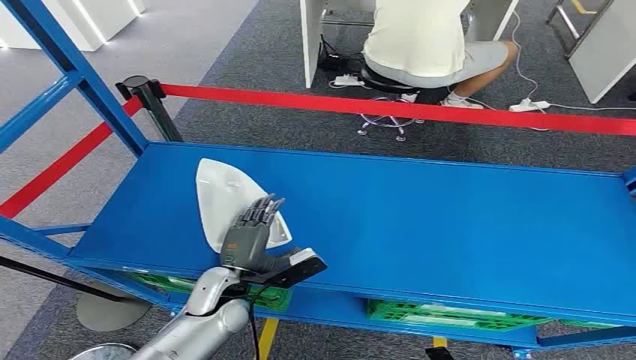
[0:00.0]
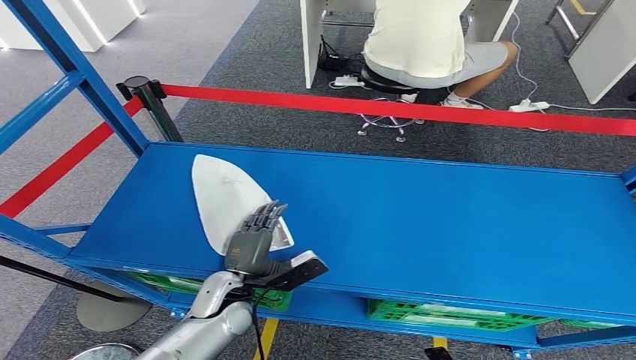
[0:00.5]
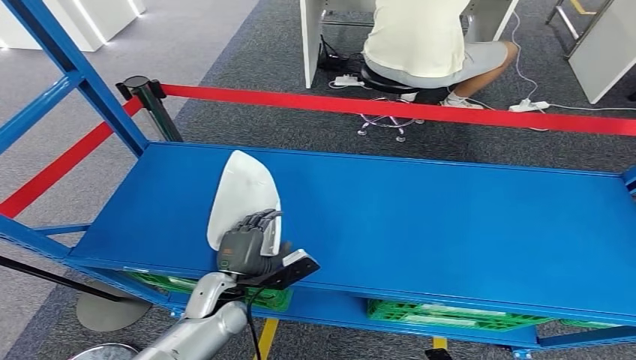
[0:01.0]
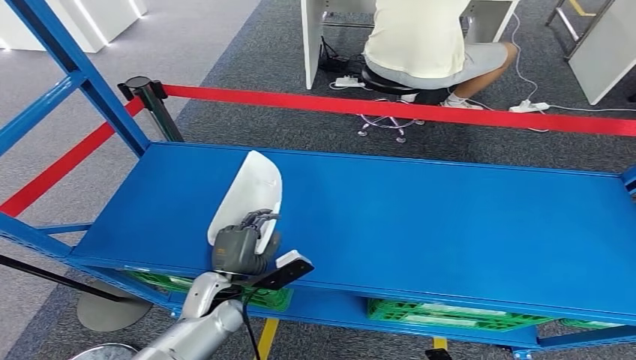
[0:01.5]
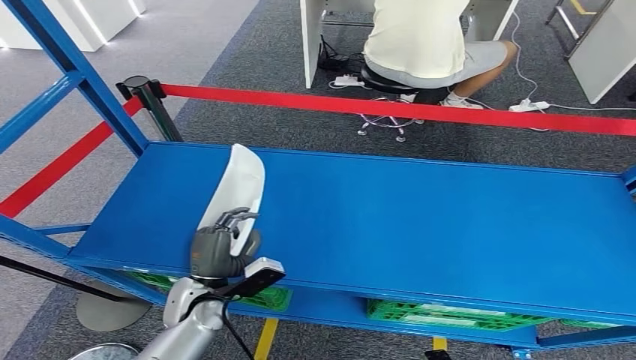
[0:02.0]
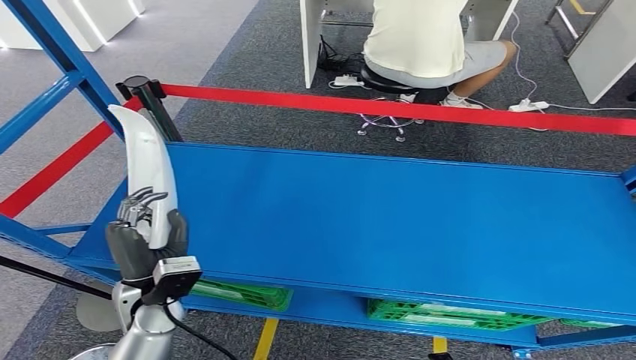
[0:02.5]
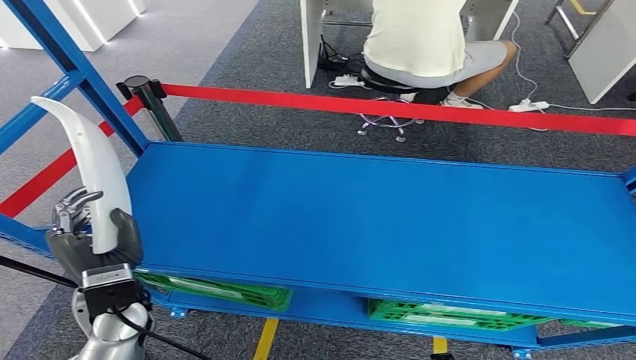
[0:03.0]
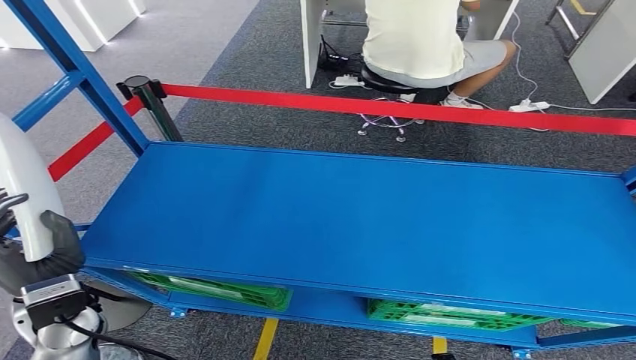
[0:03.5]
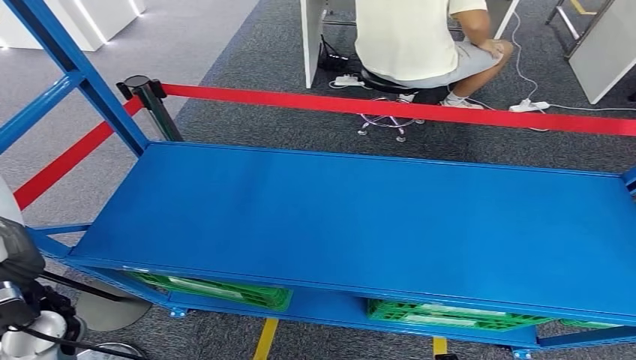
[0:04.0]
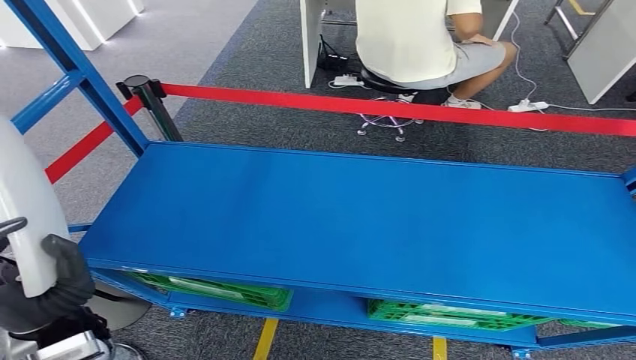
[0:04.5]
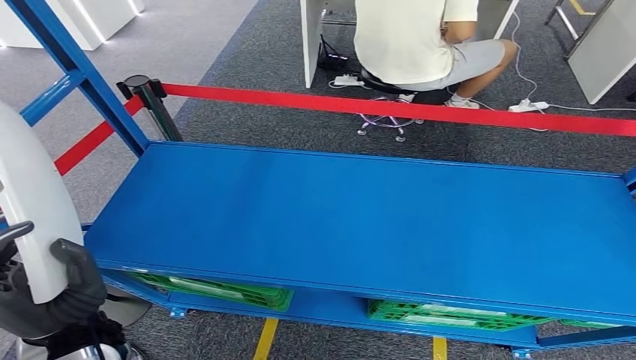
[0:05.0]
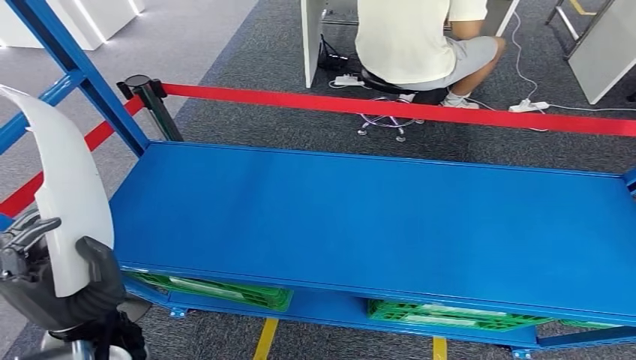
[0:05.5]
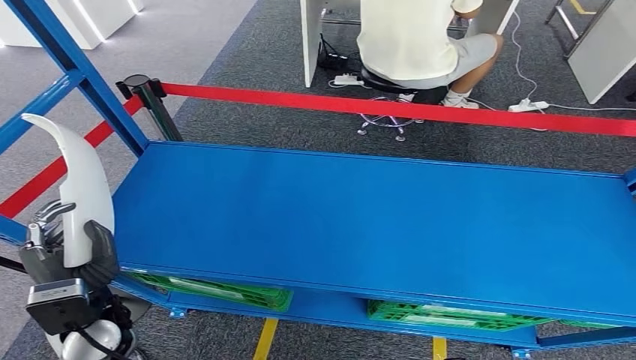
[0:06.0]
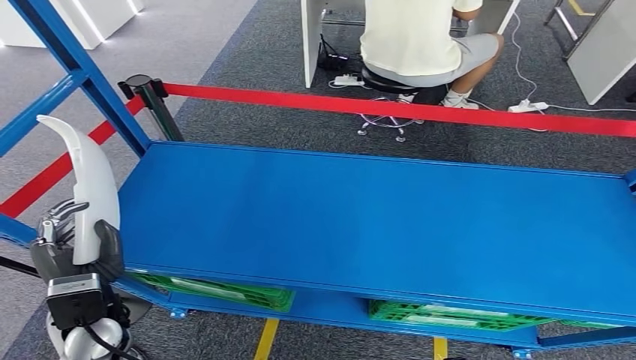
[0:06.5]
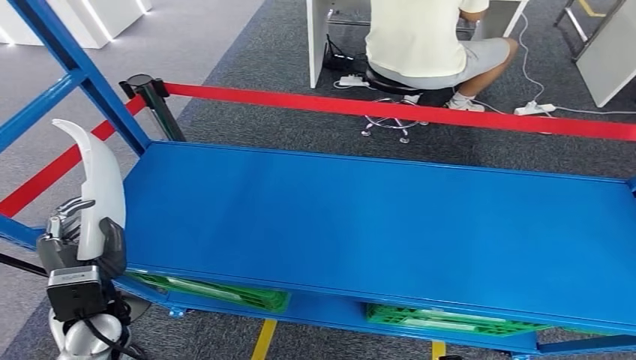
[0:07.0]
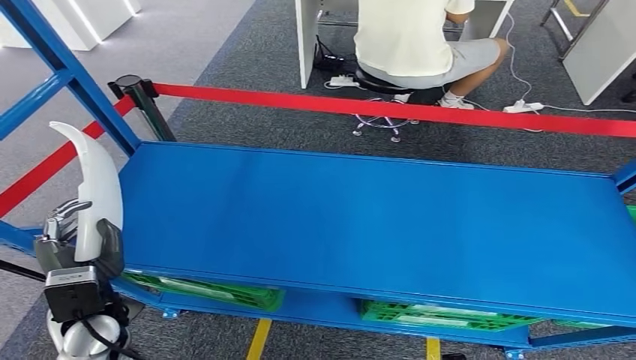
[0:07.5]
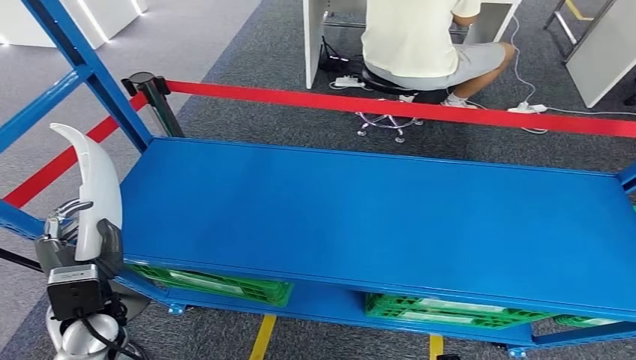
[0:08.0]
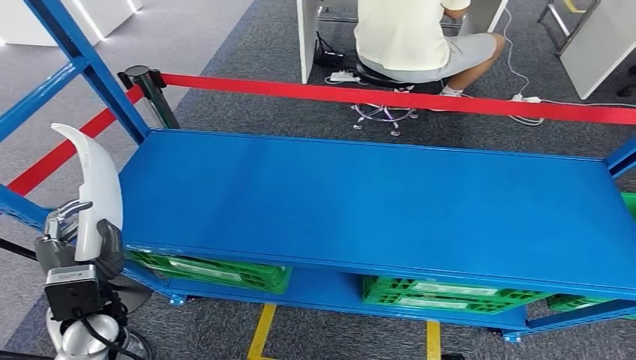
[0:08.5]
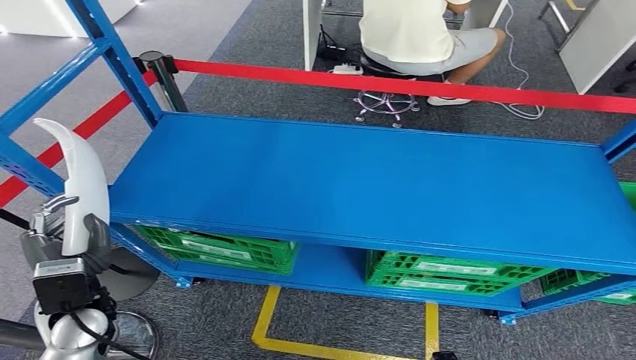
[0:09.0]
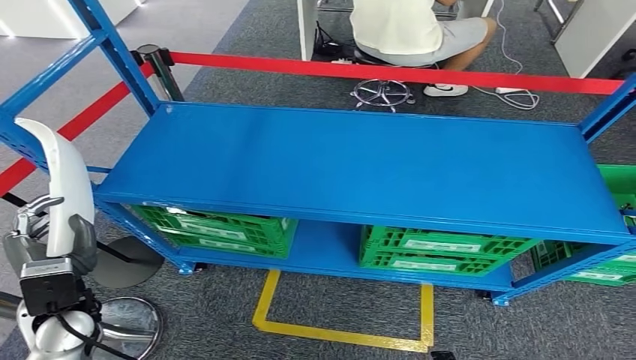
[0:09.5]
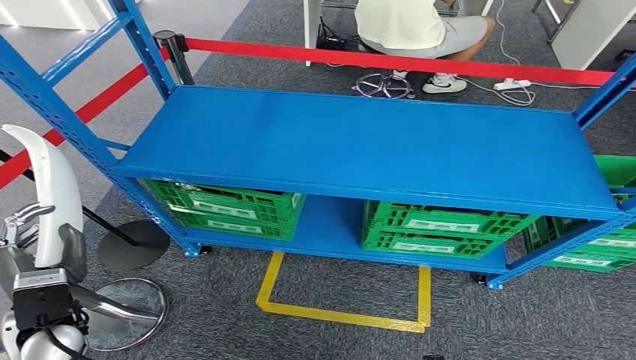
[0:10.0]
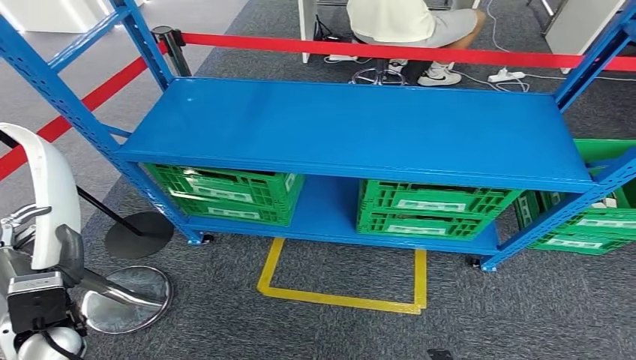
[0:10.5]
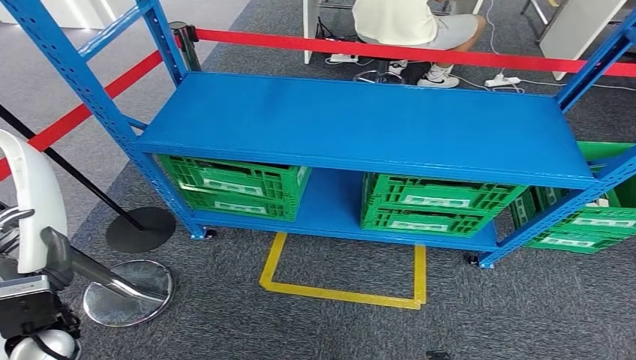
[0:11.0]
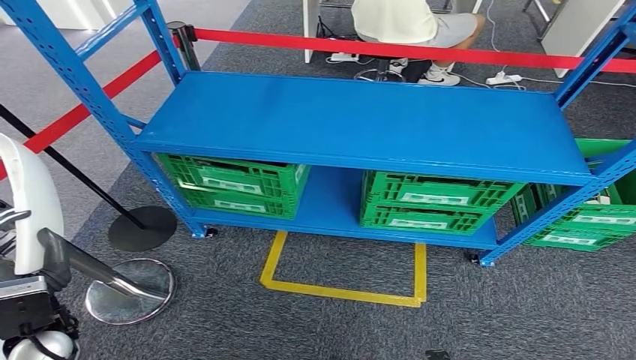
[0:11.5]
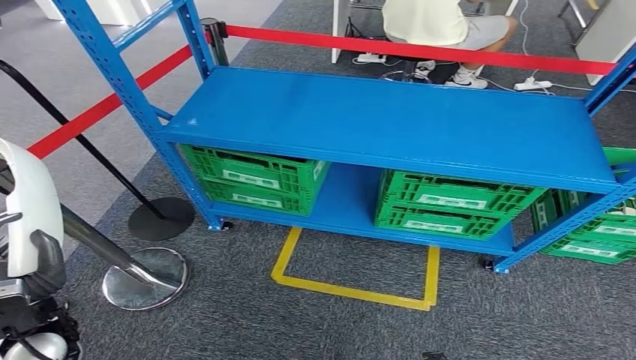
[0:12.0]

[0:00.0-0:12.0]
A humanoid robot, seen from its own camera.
Step, 0:00.0 to 0:07.0: Pick up the small component from the shelf.
0:02.0 to 0:04.0: The left hand shifts approximately 20 cm to the left and upward.
0:04.0 to 0:06.0: The left hand goes some 5 cm to the right.
0:06.0 to 0:08.0: The hands move only a little.

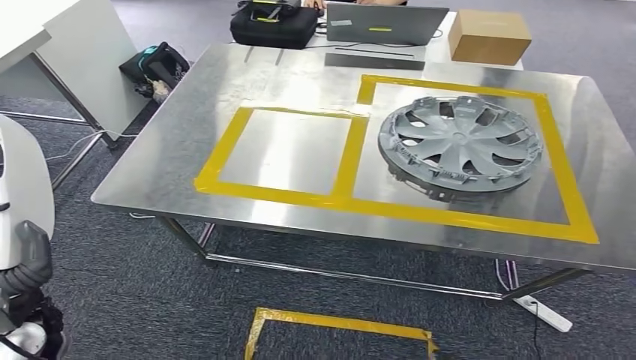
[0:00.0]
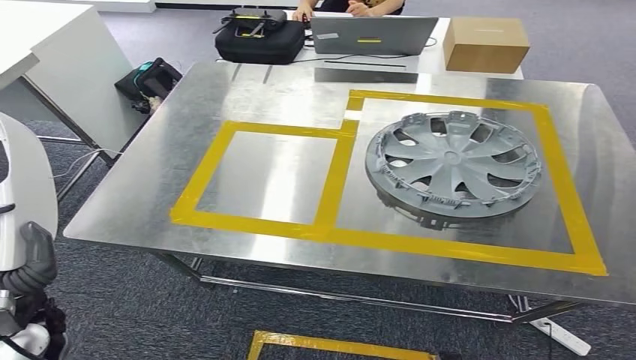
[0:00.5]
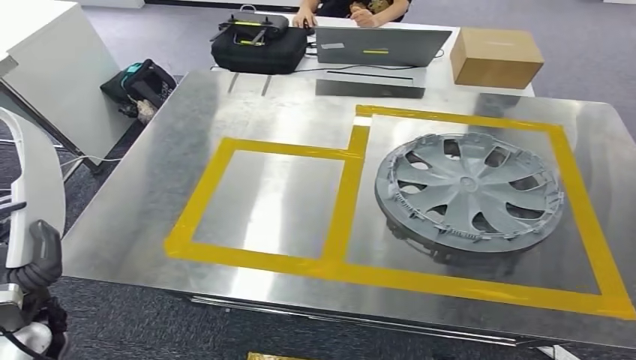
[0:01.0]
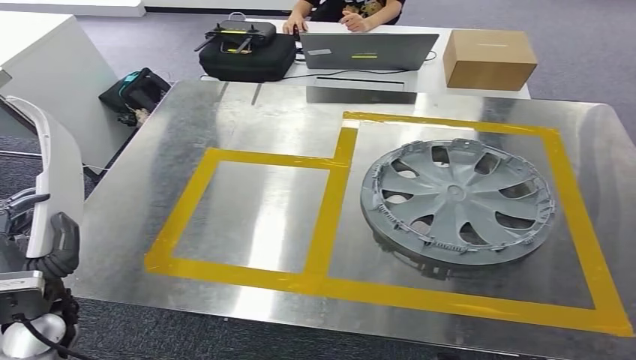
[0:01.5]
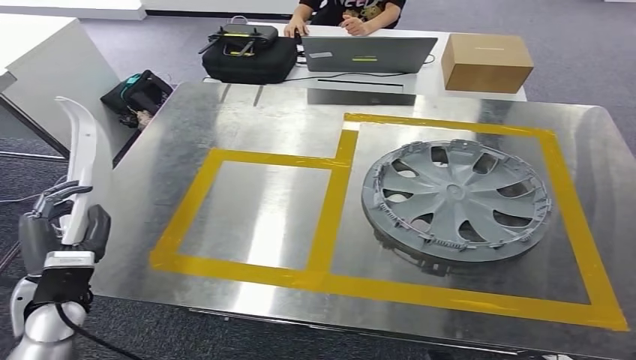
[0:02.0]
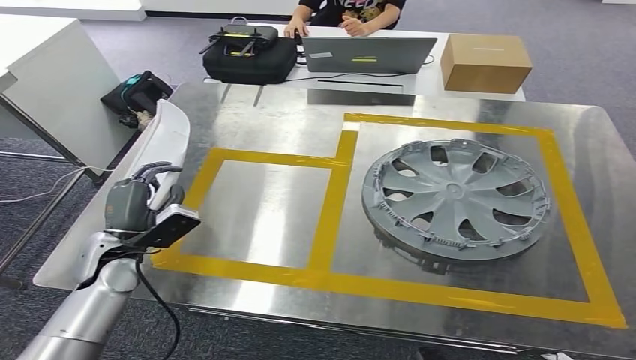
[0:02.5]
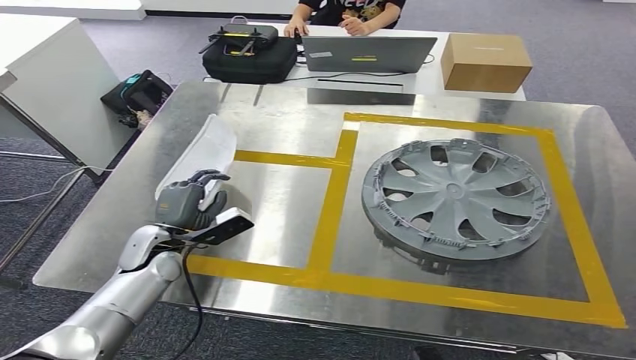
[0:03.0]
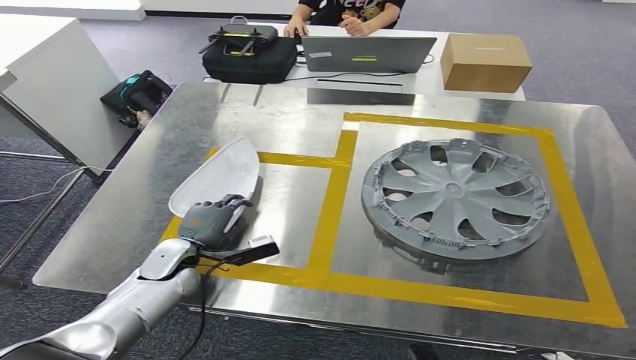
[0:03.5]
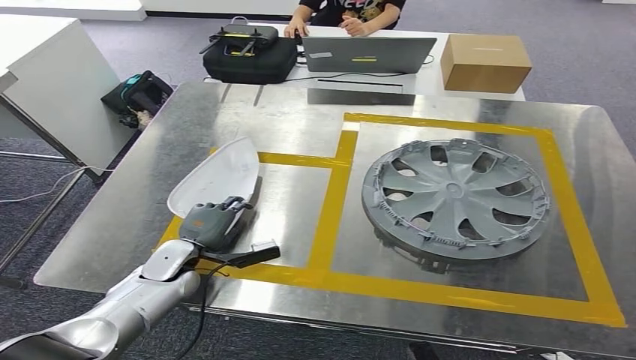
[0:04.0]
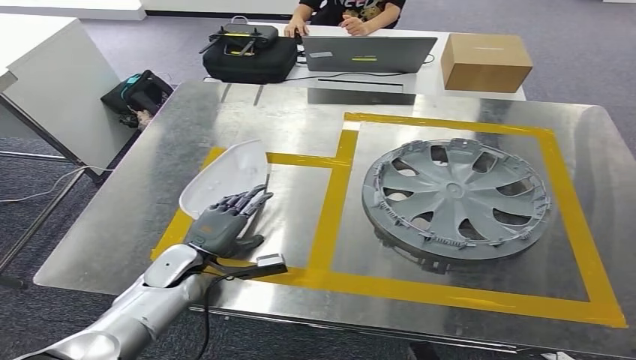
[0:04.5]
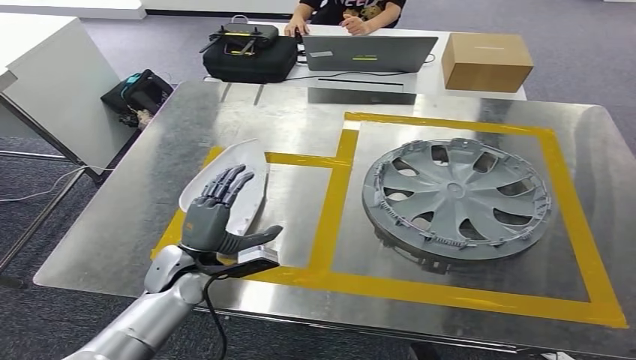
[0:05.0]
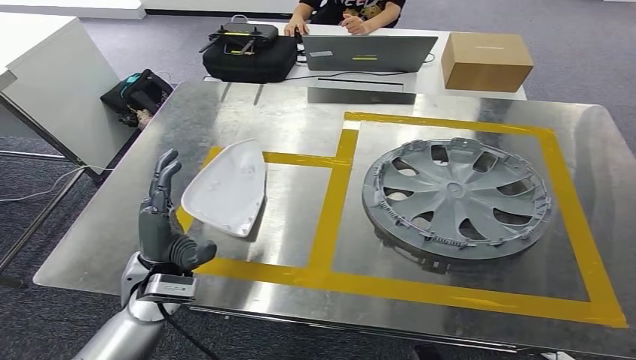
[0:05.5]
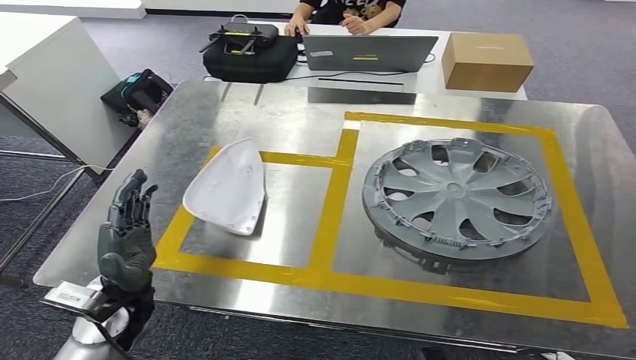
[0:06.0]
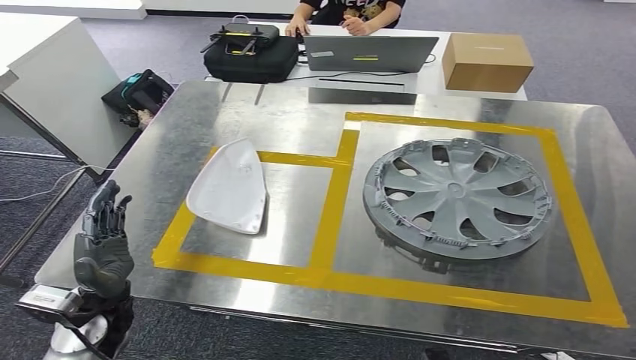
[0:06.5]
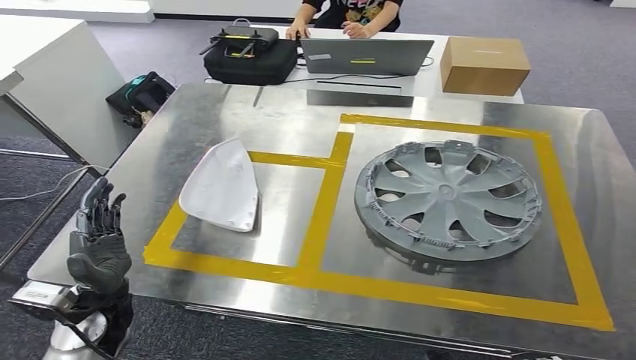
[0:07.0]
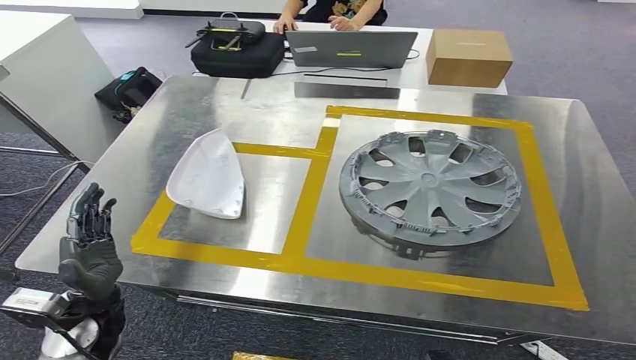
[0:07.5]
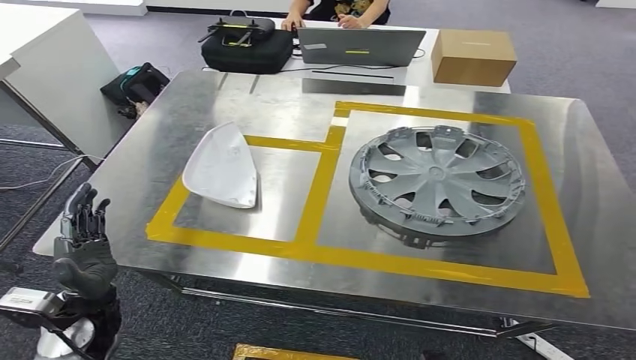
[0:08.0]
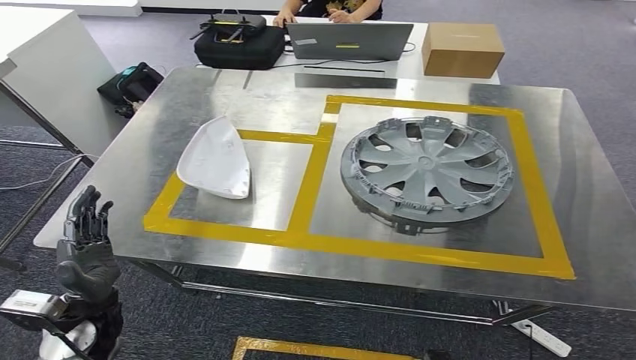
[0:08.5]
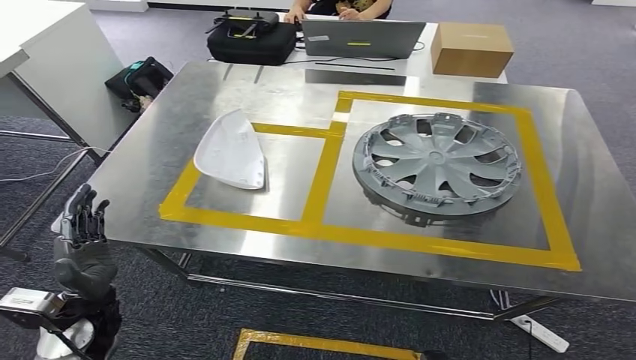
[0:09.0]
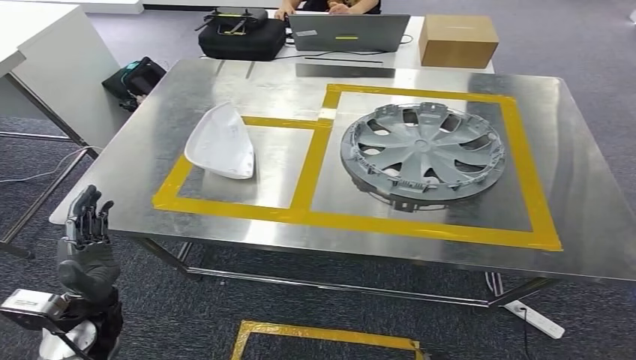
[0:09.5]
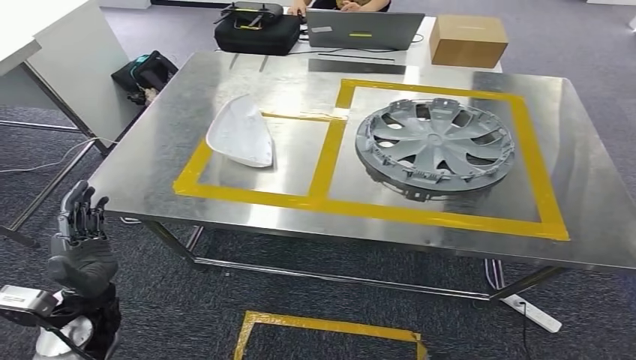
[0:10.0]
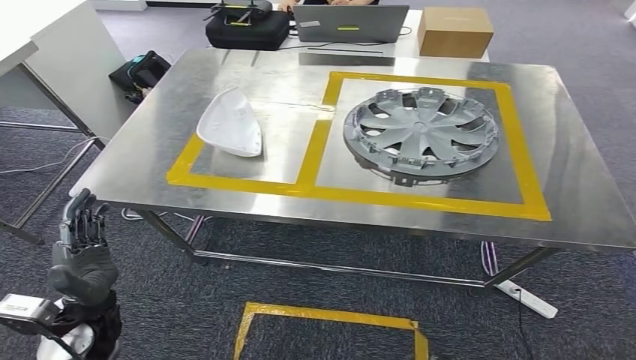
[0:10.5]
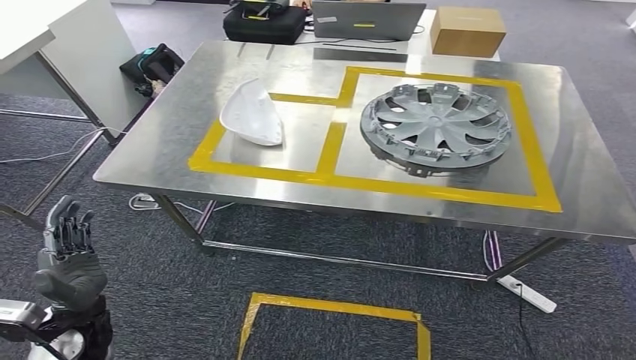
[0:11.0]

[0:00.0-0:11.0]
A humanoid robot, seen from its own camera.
Step, 0:01.0 to 0:06.0: Insert the small component into the corresponding slot on the workbench.
0:02.0 to 0:03.5: The left hand shifts approximately 15 cm downward, forward and to the right.
0:03.5 to 0:05.5: The left hand goes some 15 cm upward, backward and to the right.
